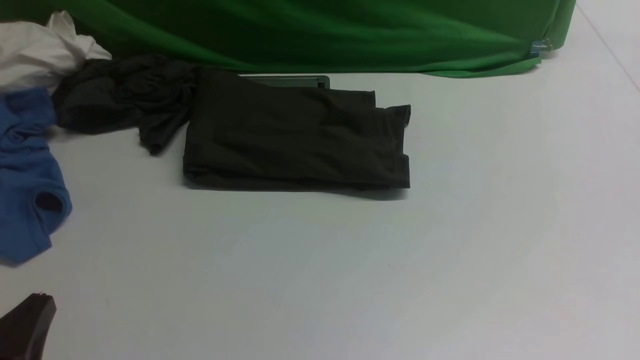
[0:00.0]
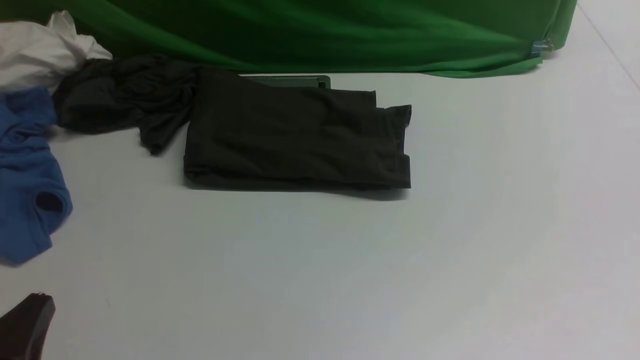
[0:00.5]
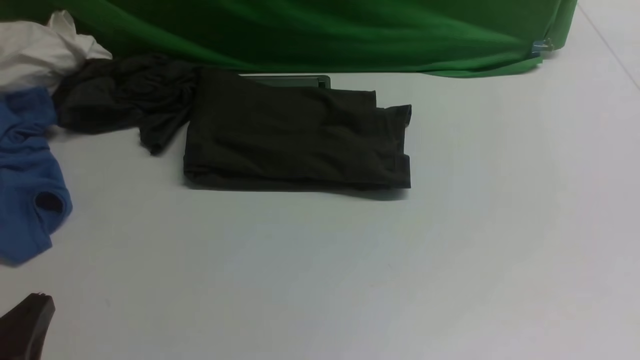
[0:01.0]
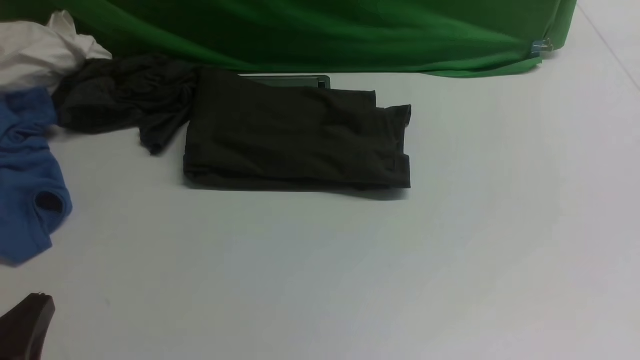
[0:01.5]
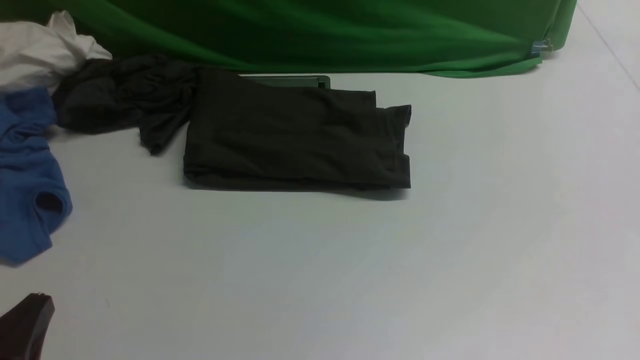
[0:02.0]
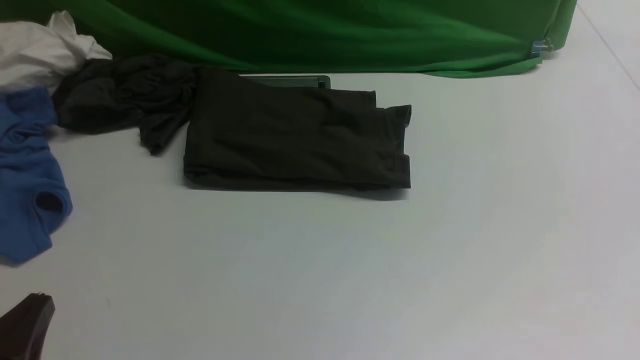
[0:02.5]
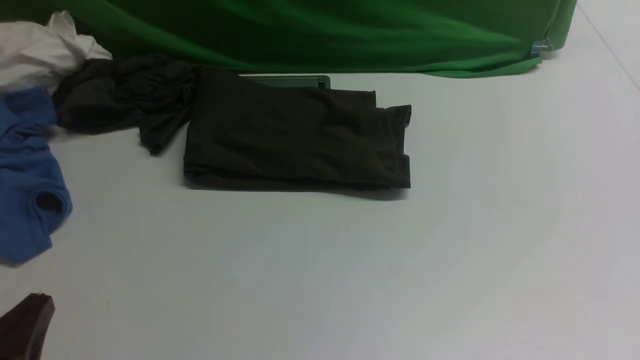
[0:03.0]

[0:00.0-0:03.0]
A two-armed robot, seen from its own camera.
0:01.5 to 0:03.0: Both grippers stay put.
